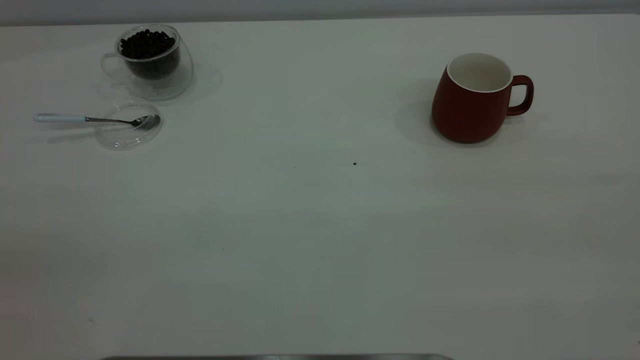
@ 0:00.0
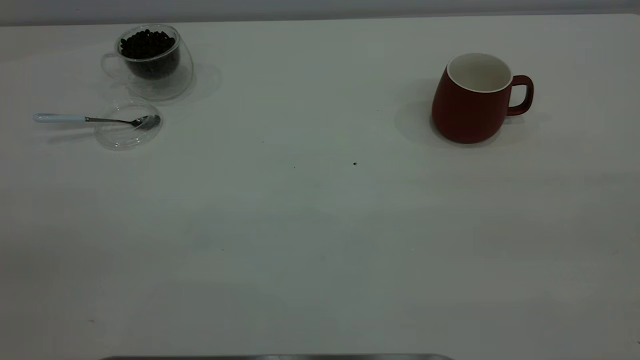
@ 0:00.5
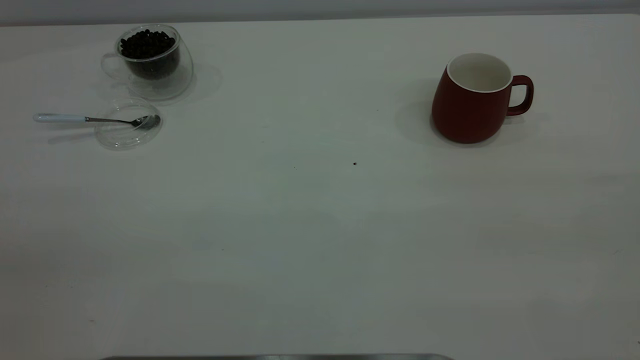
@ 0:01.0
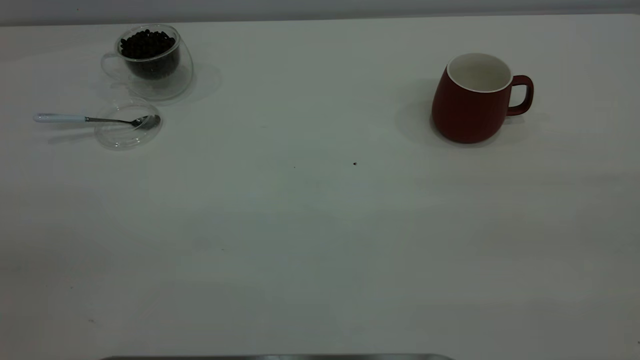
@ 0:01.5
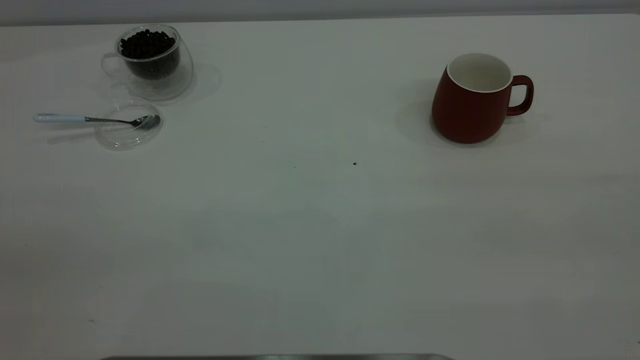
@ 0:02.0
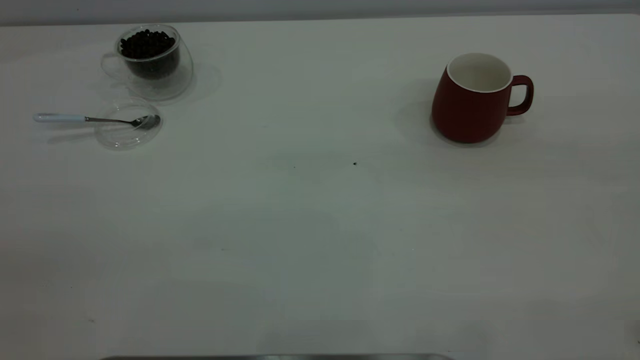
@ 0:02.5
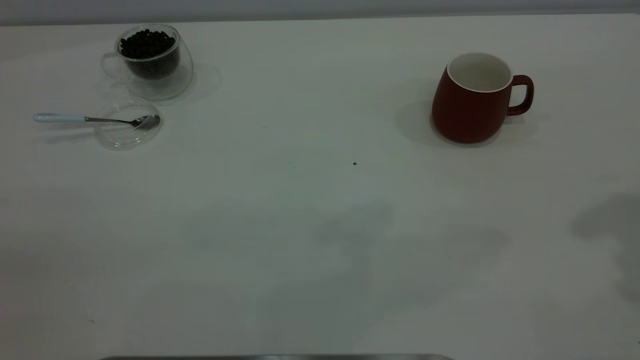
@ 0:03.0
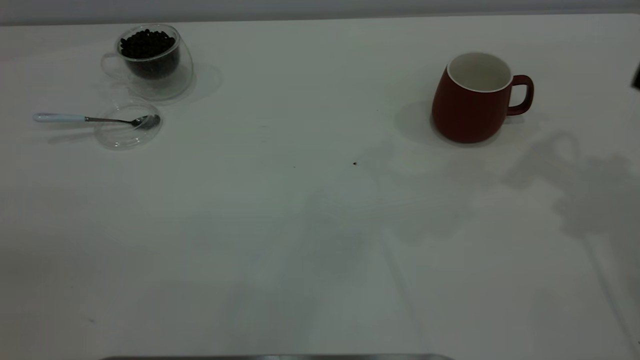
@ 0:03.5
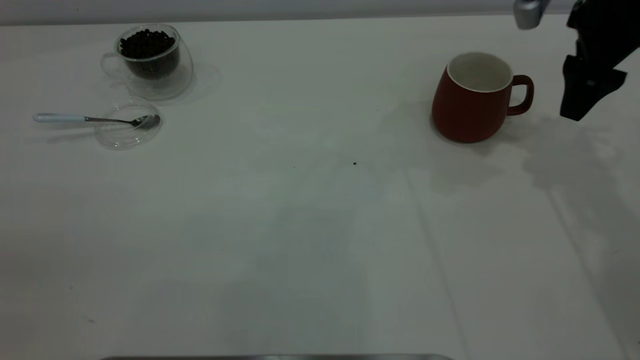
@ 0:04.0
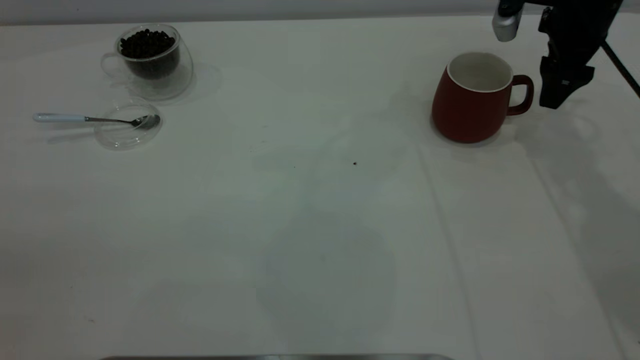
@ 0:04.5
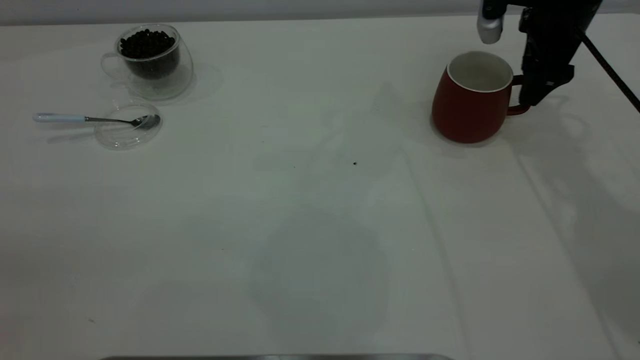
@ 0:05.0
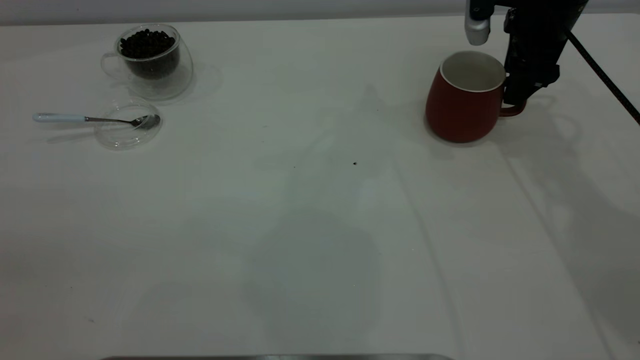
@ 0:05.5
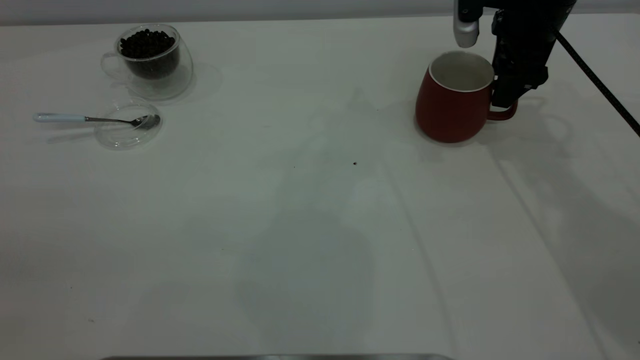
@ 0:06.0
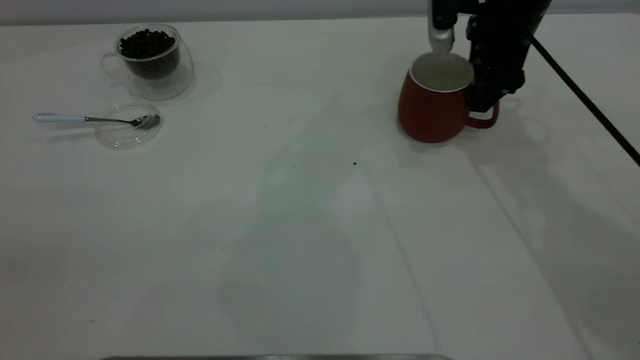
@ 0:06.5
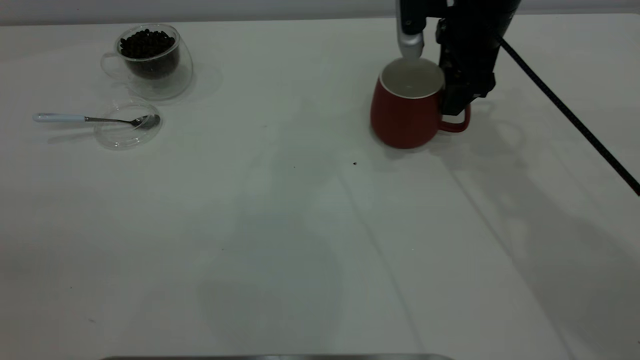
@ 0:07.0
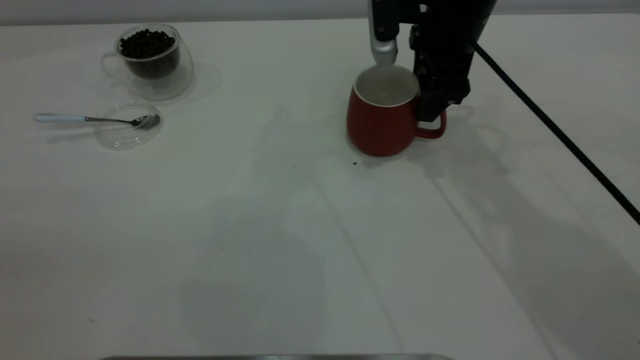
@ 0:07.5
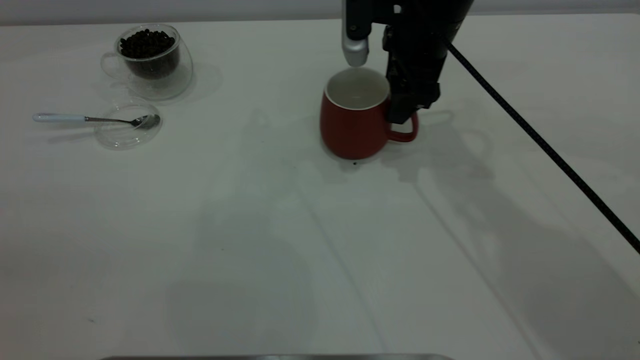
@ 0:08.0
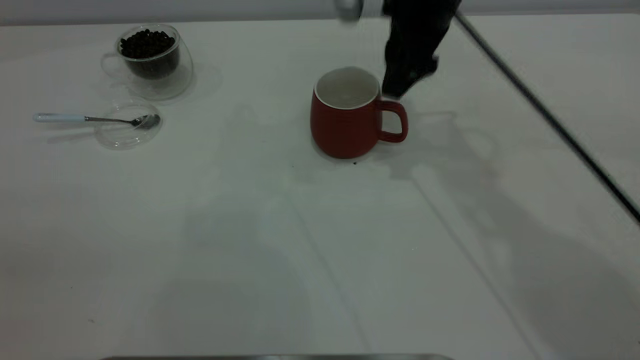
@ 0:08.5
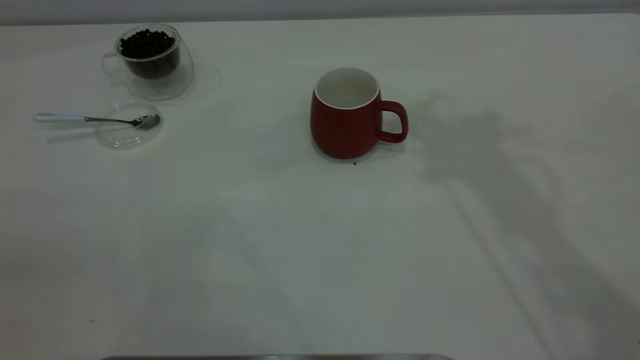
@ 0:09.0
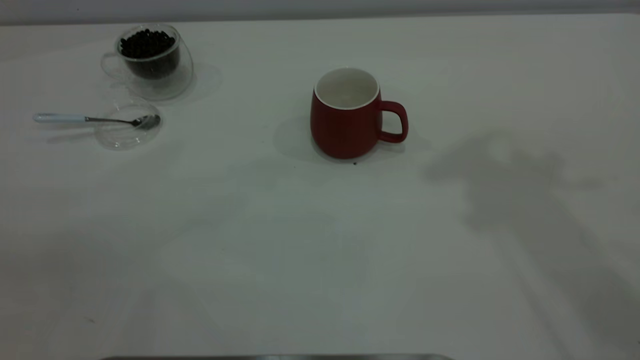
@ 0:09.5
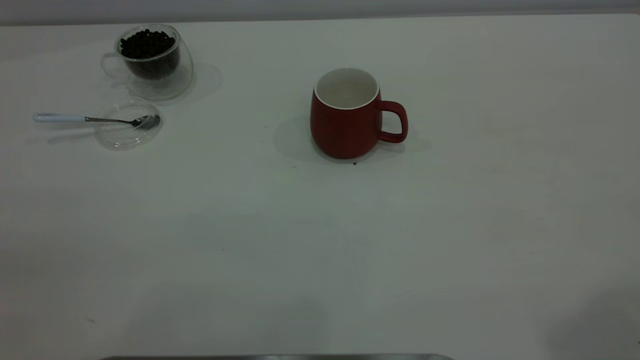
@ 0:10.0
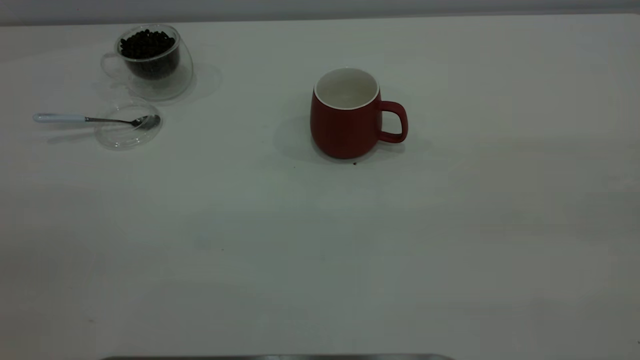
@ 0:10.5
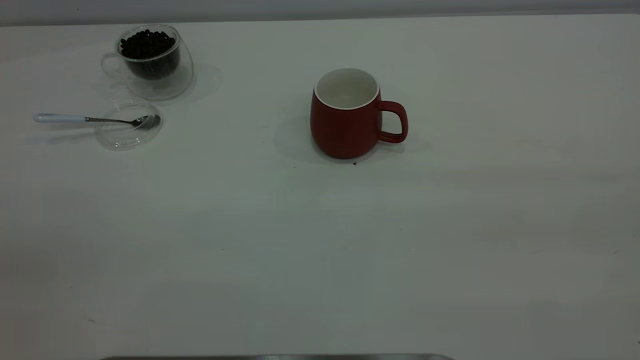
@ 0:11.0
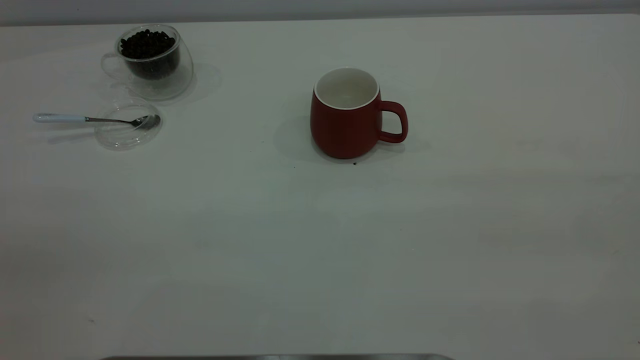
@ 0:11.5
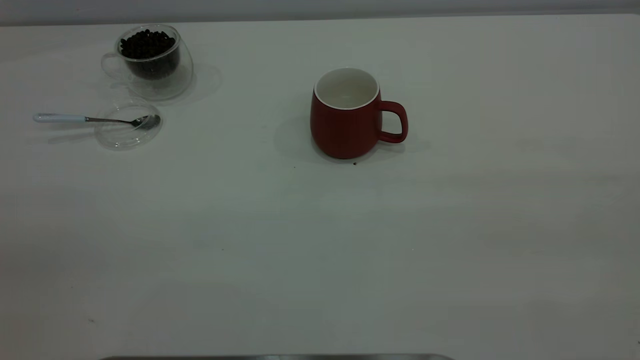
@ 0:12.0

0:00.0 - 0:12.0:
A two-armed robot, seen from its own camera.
Task of the whole recording: the right gripper place the red cup in the center of the table, the left gripper take the blue spoon from the cup lid and scoop out the coffee beans from the coffee cup and put them into the red cup, the left gripper put the spoon back into the cup lid.
Step, 0:00.0 - 0:08.5: Move the cup to the center of view.
0:00.0 - 0:02.0: Both grippers stay about where they are.
0:02.0 - 0:04.0: The right gripper moves forward and downward, roughly 50 cm, and opens.
0:04.0 - 0:06.0: The right gripper moves to the left, roughly 5 cm, and closes.
0:06.0 - 0:08.0: The right gripper heads to the left, covering approximately 10 cm.
0:08.0 - 0:10.0: The right gripper is displaced upward, backward and to the right by roughly 50 cm.

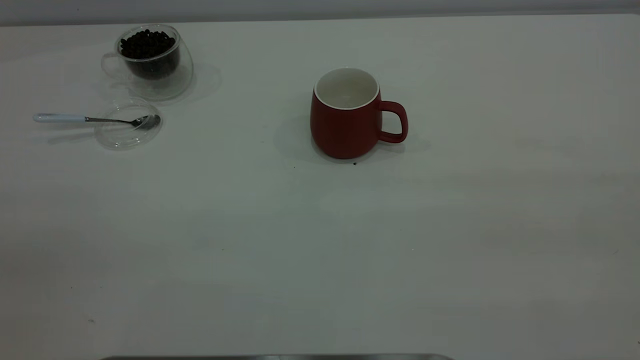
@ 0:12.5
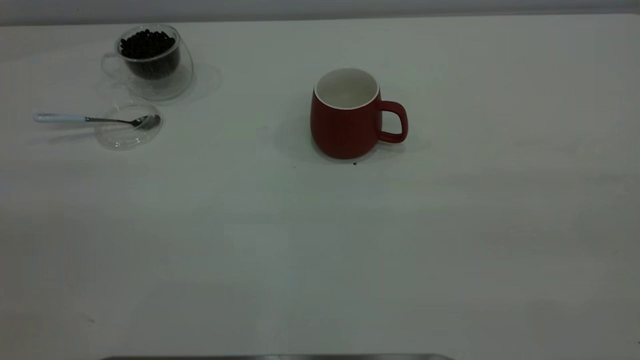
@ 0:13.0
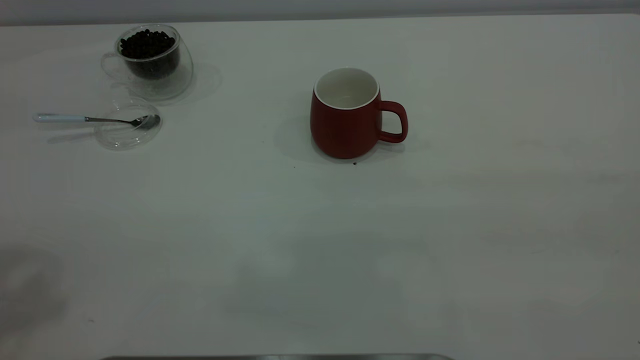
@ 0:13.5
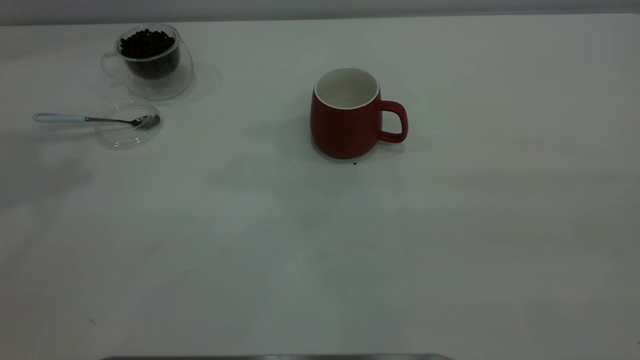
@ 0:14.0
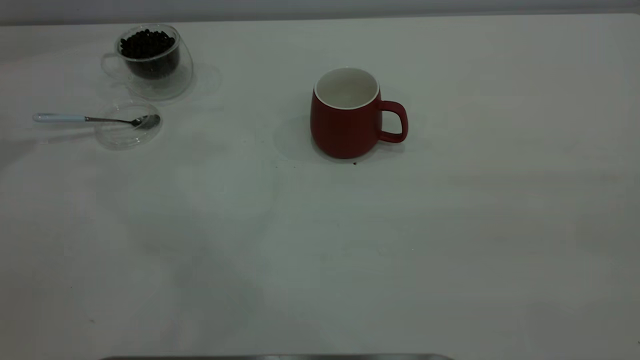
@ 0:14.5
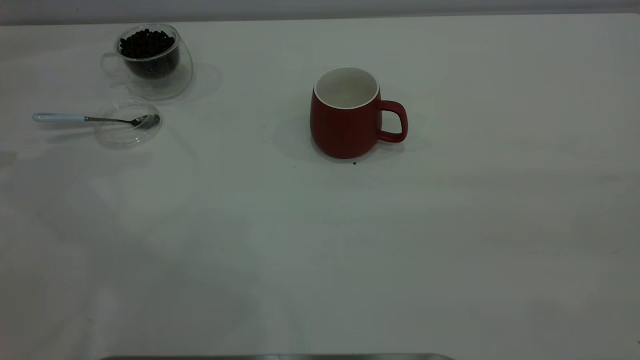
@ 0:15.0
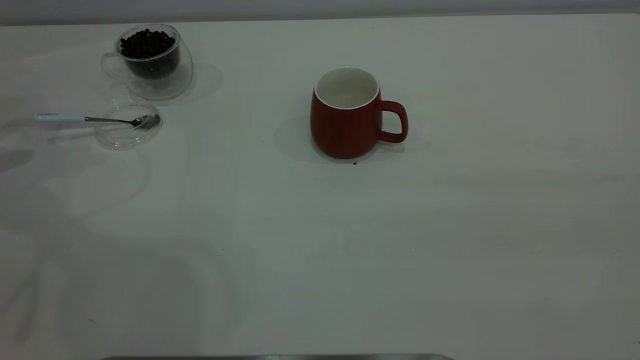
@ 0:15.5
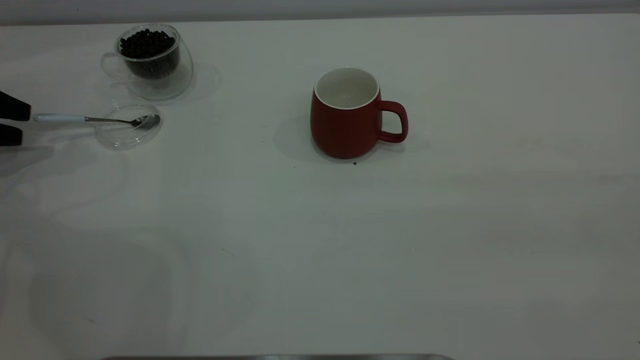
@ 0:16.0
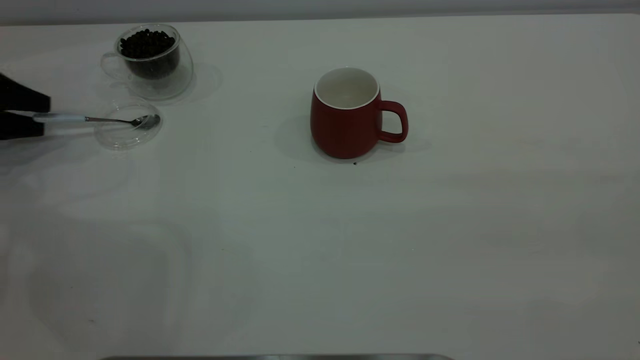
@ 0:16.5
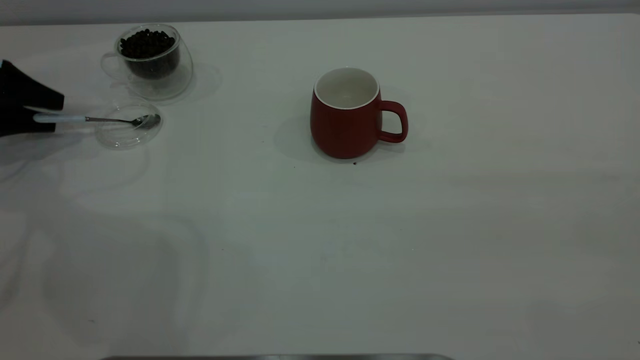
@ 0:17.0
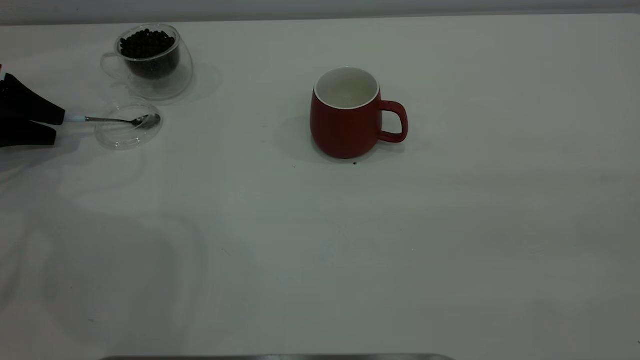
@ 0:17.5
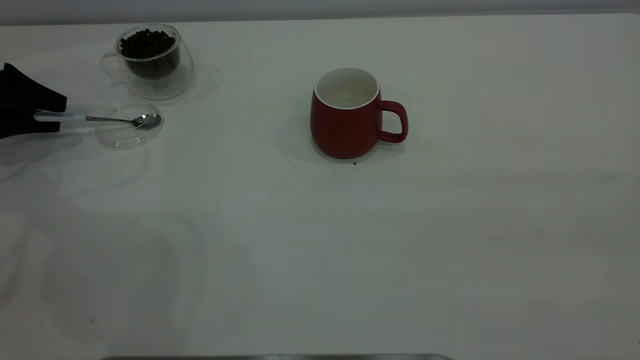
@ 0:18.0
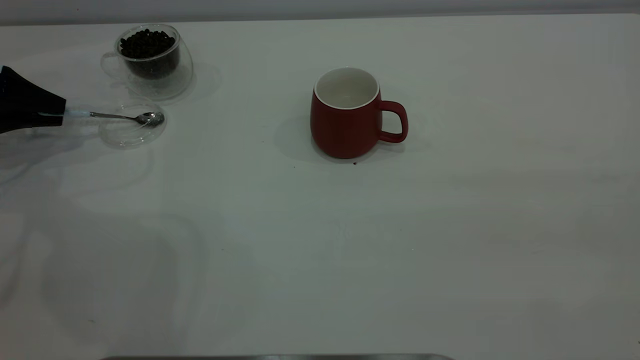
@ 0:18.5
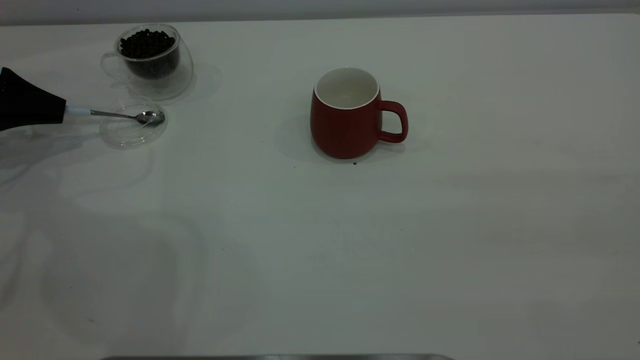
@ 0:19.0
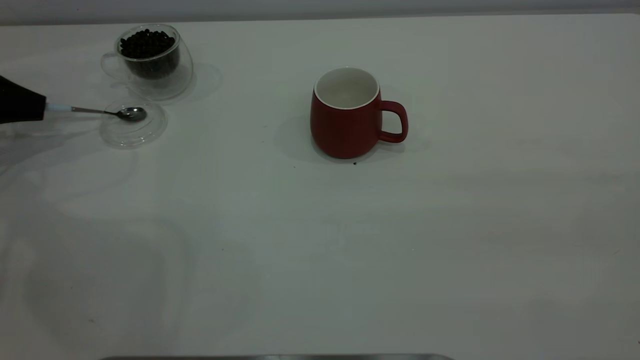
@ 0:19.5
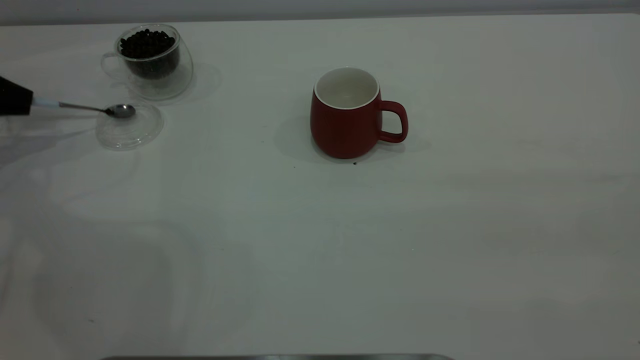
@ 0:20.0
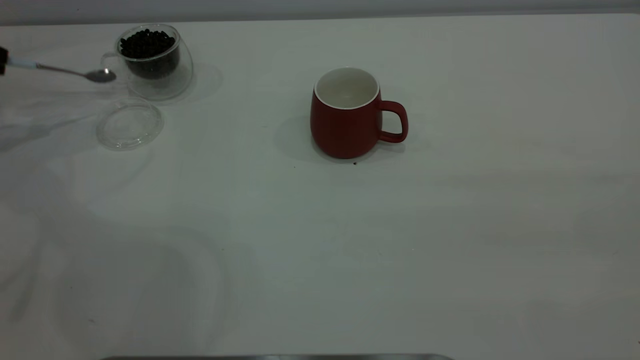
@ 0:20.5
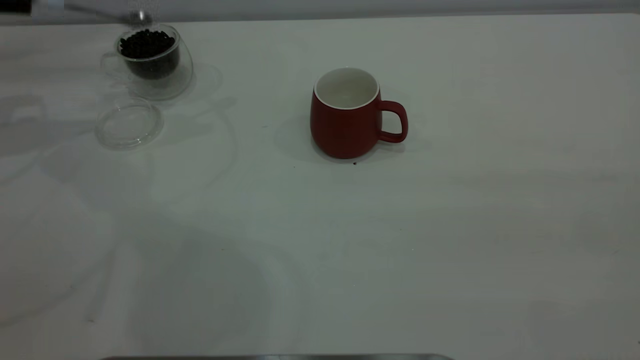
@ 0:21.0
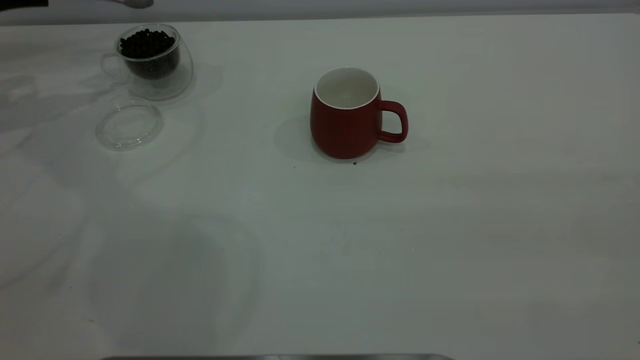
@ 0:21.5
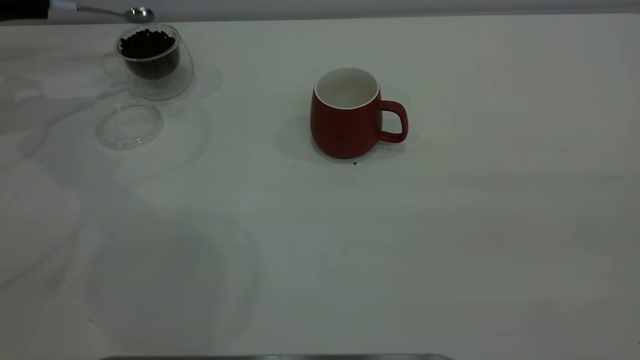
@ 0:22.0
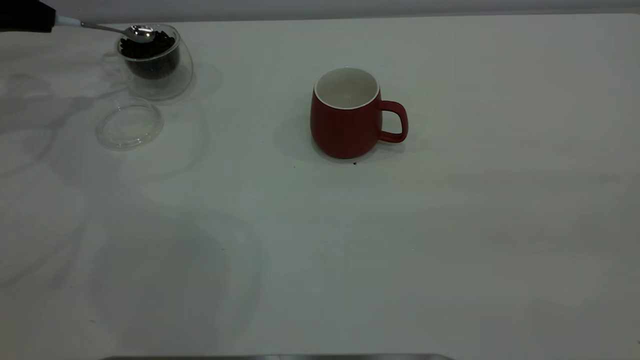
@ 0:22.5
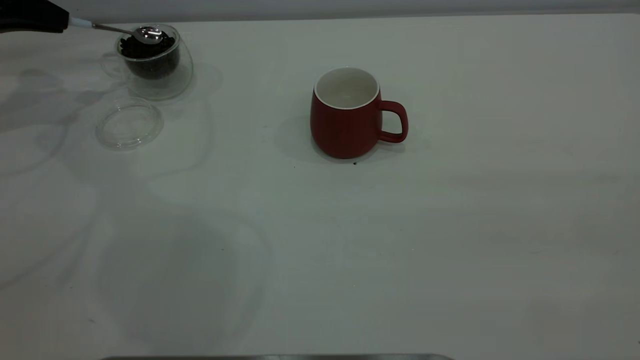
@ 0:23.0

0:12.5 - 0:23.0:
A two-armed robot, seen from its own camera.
Task of the whole recording: the right gripper place the red cup in the center of the table, the left gripper take the blue spoon from the cup lid and scoop out the coffee beans from the coffee cup and put them into the red cup, the left gripper put the spoon back into the cup lid.
Step, 0:12.5 - 0:20.0: Pick up the spoon.
0:14.5 - 0:16.5: The left gripper shifts some 25 cm downward.
0:16.5 - 0:19.0: The left gripper closes its fingers.
0:19.0 - 0:21.0: The left gripper shifts roughly 15 cm upward.
0:21.0 - 0:23.0: The left gripper shifts about 10 cm downward and forward.
